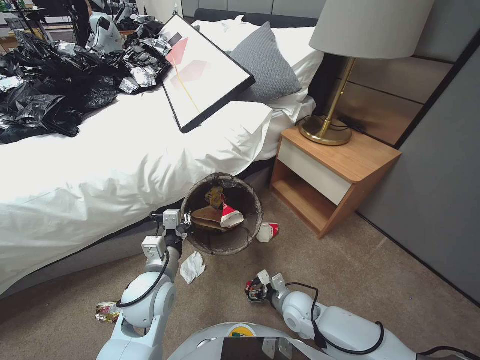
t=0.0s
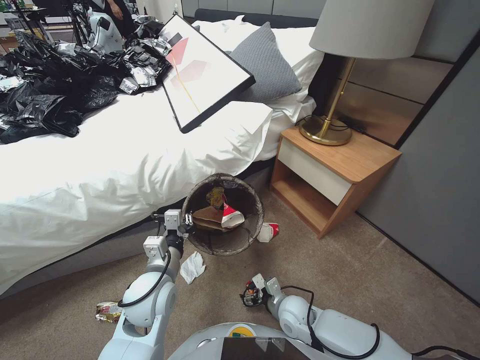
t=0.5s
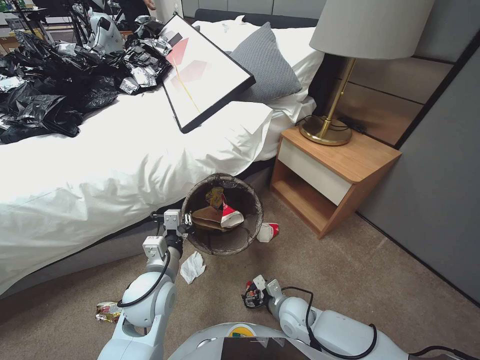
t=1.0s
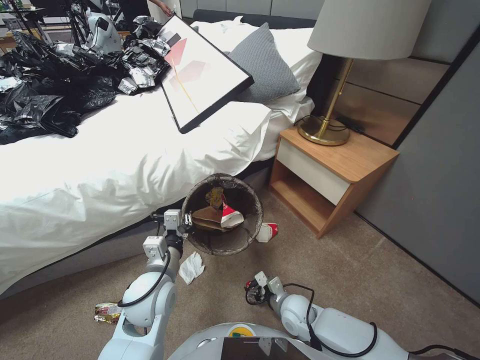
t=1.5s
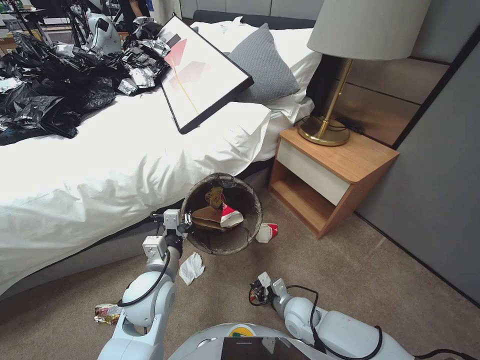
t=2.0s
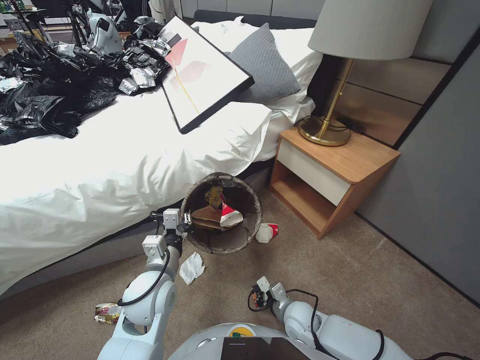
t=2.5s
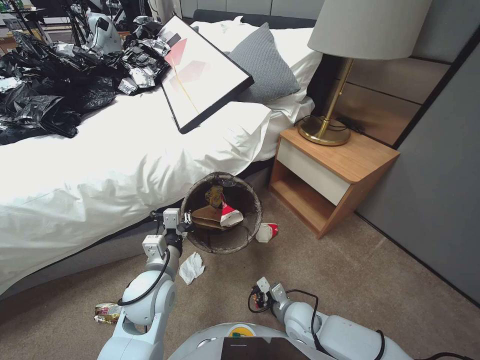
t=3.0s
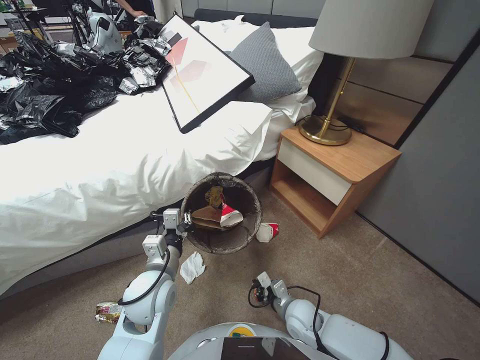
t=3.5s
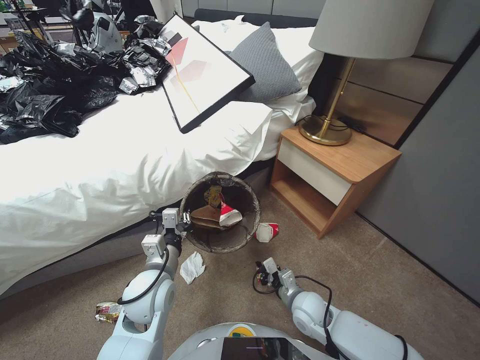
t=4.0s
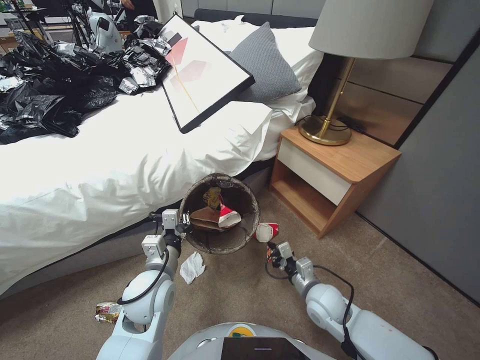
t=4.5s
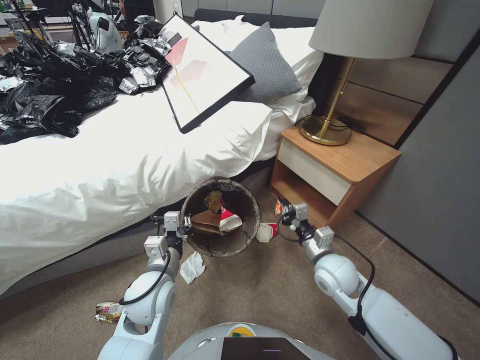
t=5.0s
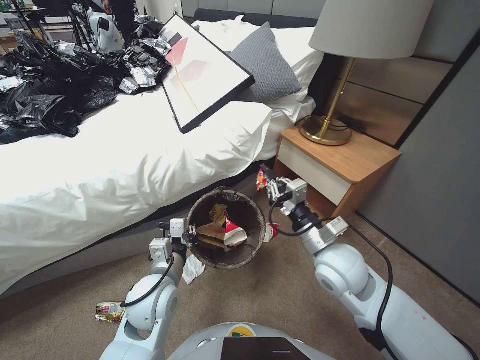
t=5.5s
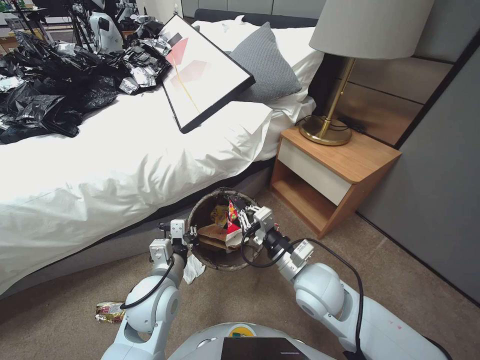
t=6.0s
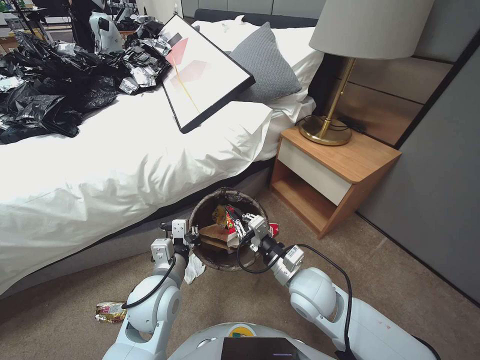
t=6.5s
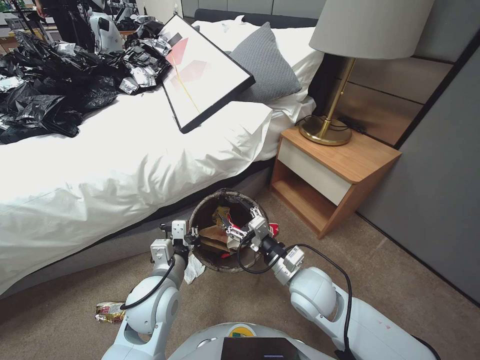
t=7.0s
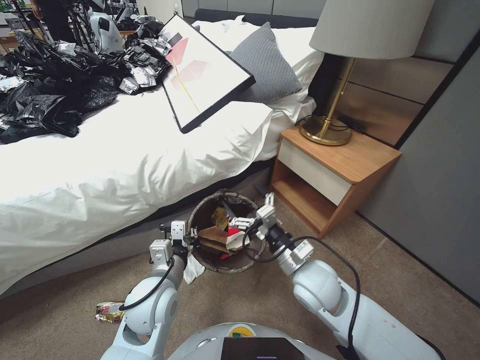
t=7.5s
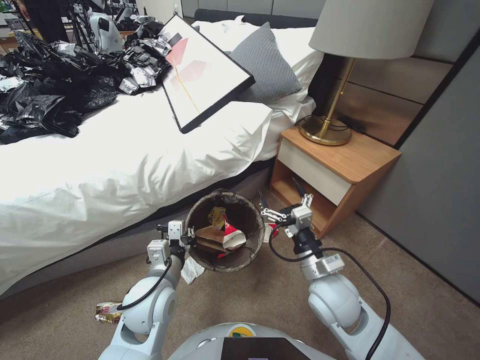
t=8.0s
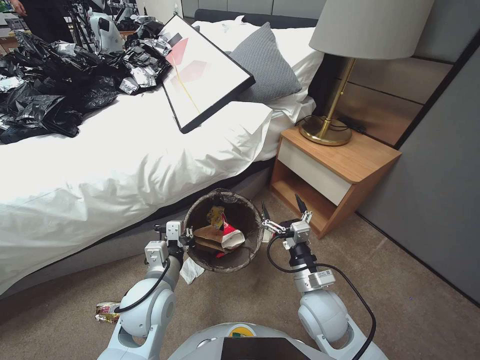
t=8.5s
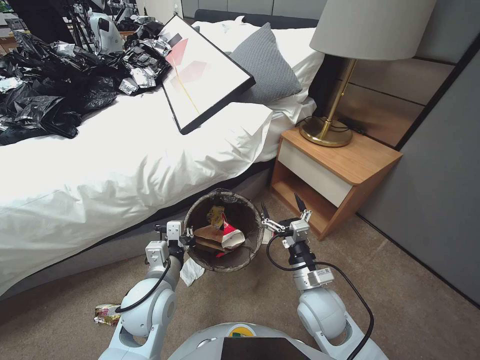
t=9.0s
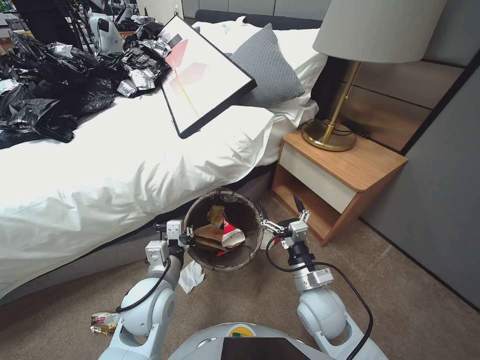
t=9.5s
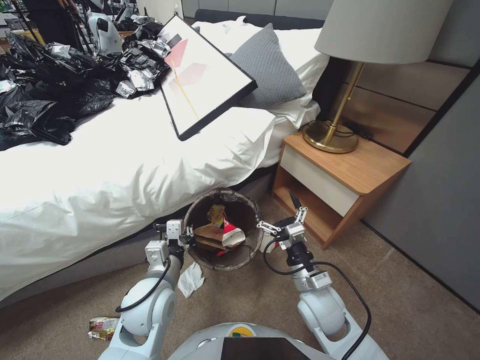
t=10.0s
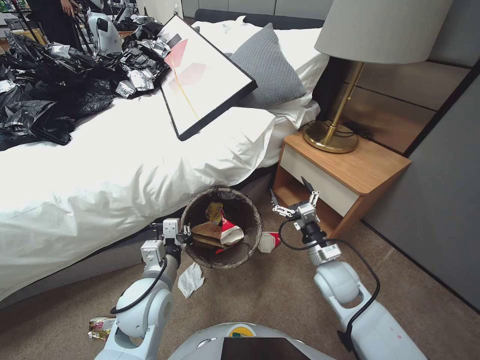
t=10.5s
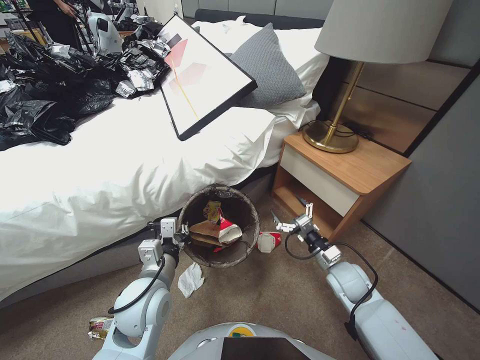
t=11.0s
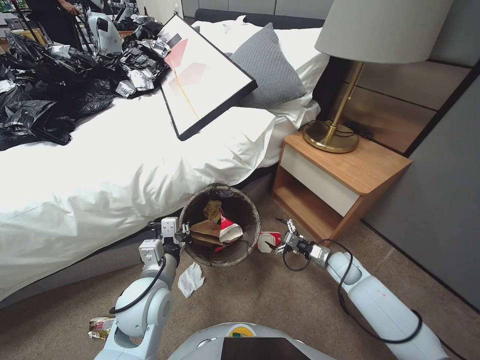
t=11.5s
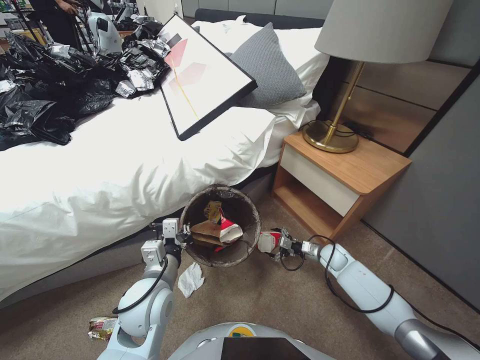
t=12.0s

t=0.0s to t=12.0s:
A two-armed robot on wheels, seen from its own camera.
Task of the whole recording: Pick up the trash bin, then pick up the garbage from the floor and place it into the trash bin.
t=0.0s to t=2.0s: The right gripper closes its fingers.
t=2.0s to t=4.0s: The right gripper closes its fingers.
t=4.0s to t=6.0s: The right gripper shifts some 20 cm upward.
t=6.0s to t=8.0s: The right gripper opens.
t=8.0s to t=10.0s: The right gripper is displaced downward by some 10 cm.
t=10.0s to t=12.0s: The right gripper travels forward, to the right and downward by some 25 cm.

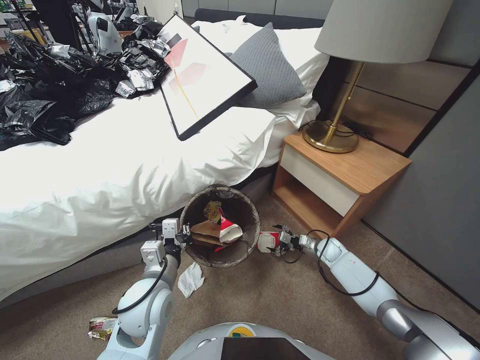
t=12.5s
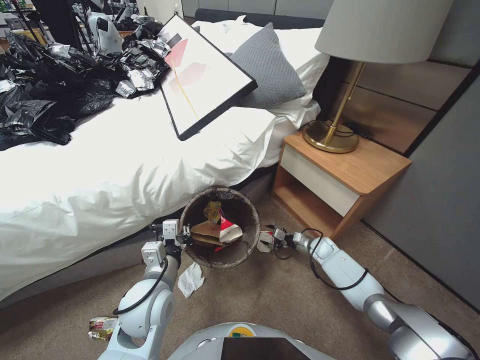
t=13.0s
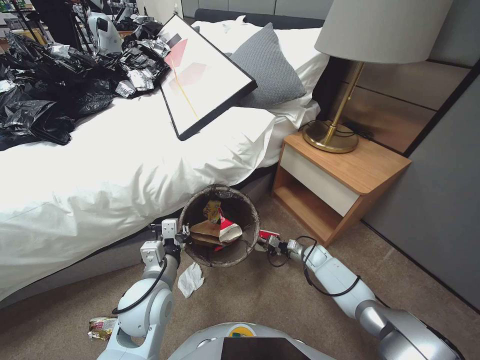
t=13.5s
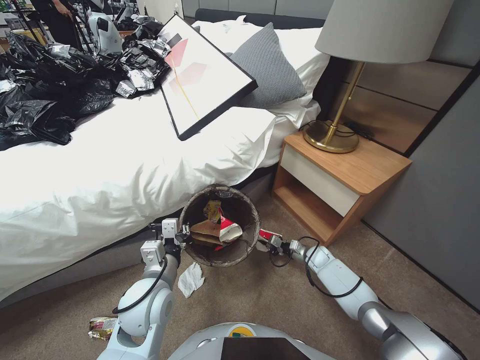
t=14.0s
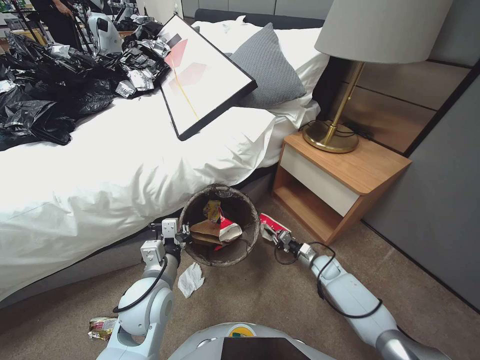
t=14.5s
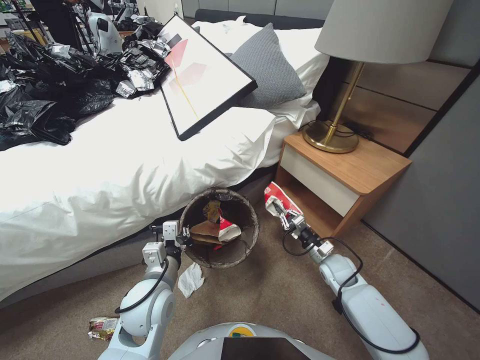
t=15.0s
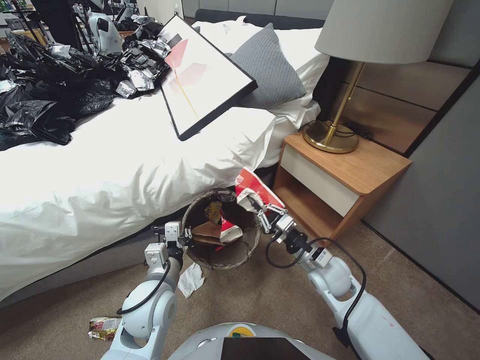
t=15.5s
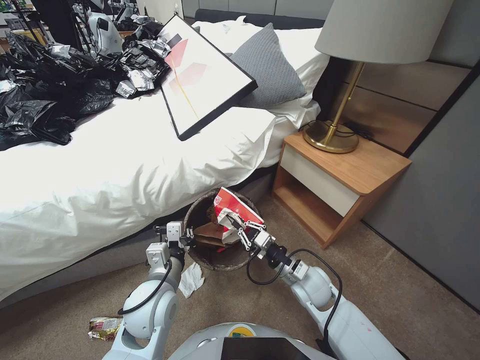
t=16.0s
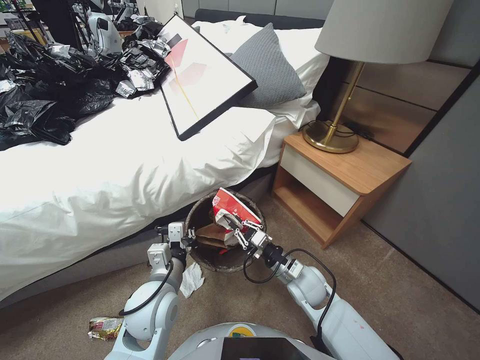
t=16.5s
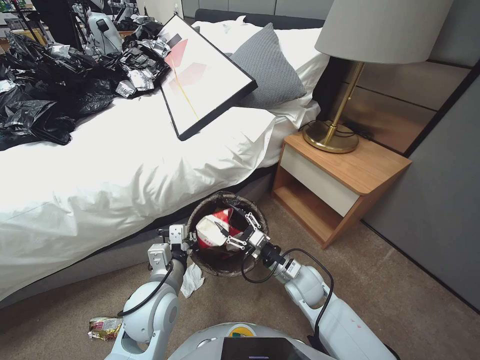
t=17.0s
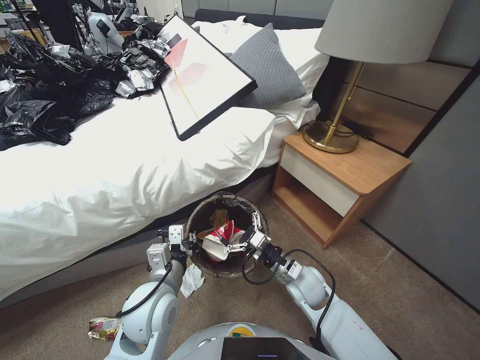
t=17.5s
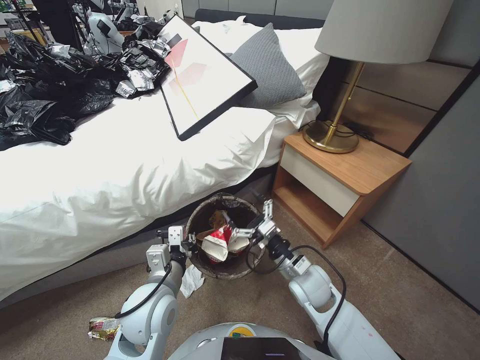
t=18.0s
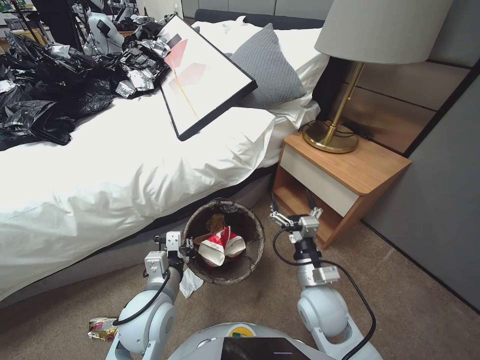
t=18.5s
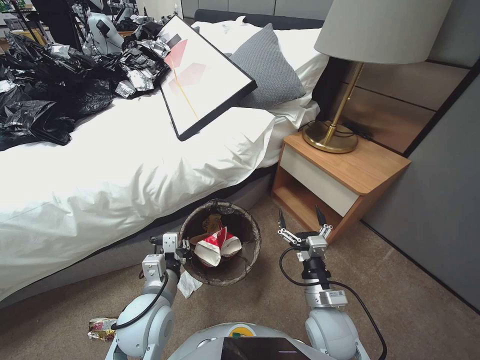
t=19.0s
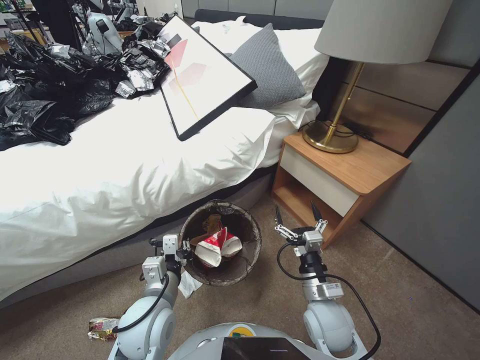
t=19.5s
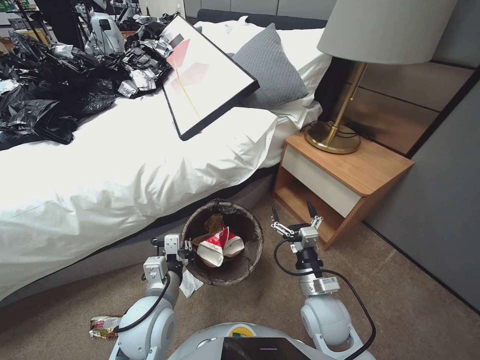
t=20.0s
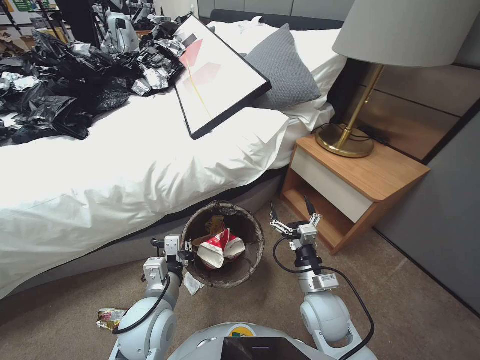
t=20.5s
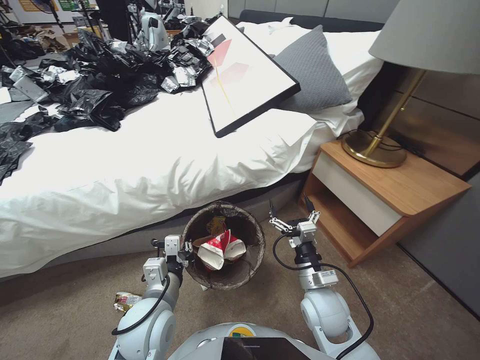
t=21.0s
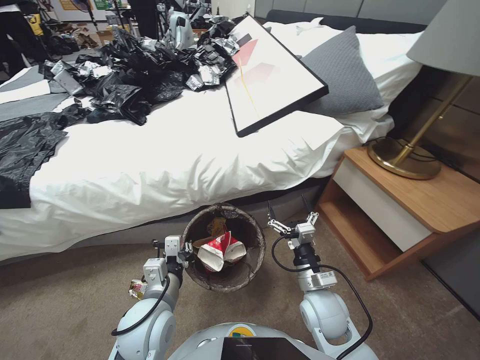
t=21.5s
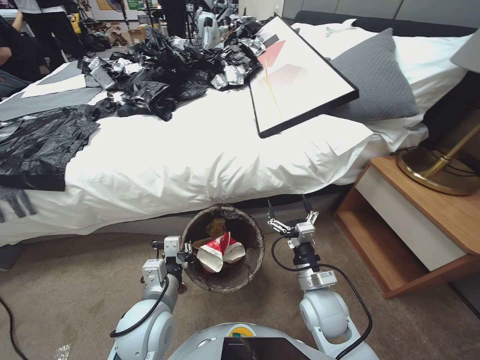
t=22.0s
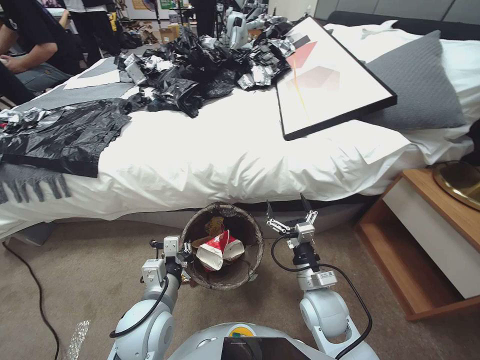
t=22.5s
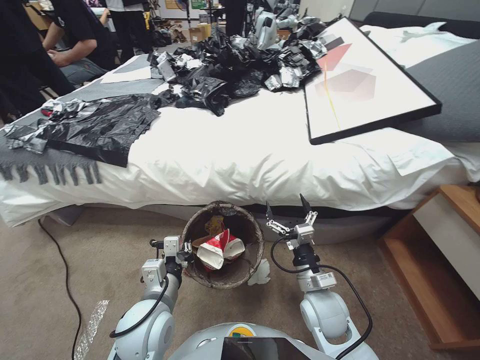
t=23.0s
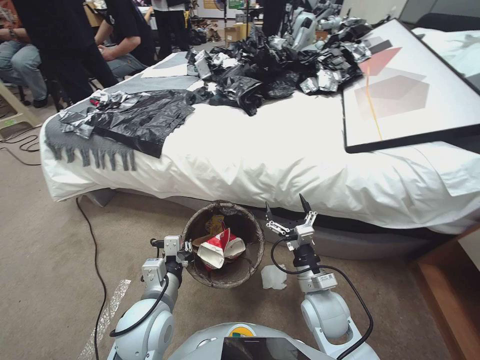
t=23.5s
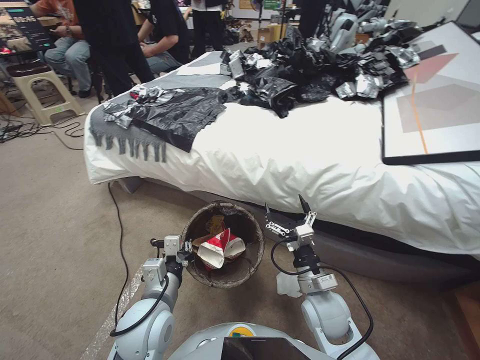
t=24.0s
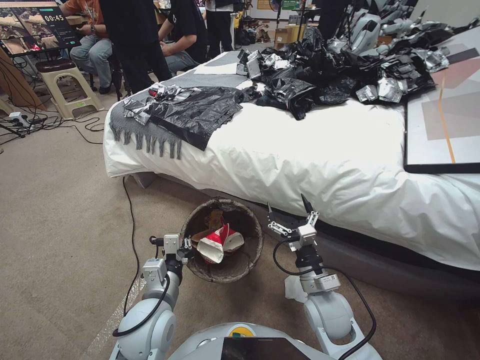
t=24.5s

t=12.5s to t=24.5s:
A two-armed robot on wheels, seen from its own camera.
Task of the whole recording: Pick up the trash bin, then pick up the garbage from the floor and place it into the trash bin.
t=12.5s to t=14.5s: The right gripper moves roughly 5 cm, and closes its fingers.
t=14.5s to t=16.5s: The right gripper shifts roughly 25 cm upward, to the left and backward.
t=16.5s to t=18.5s: The right gripper travels upward and backward by approximately 10 cm, and opens.

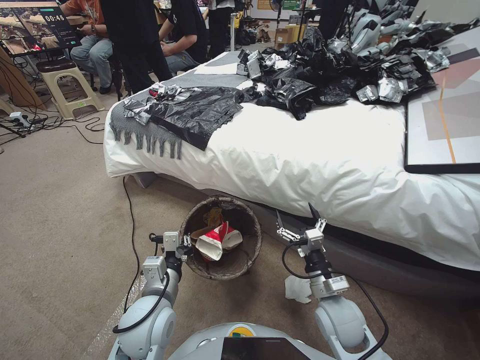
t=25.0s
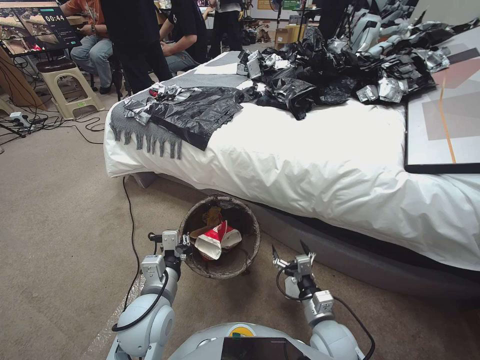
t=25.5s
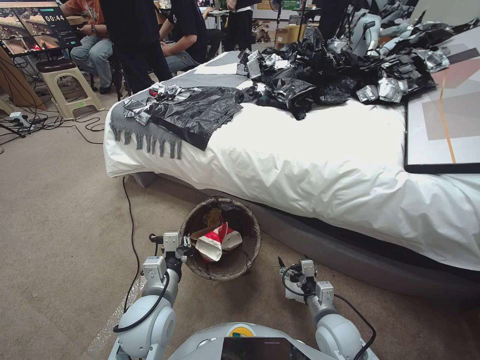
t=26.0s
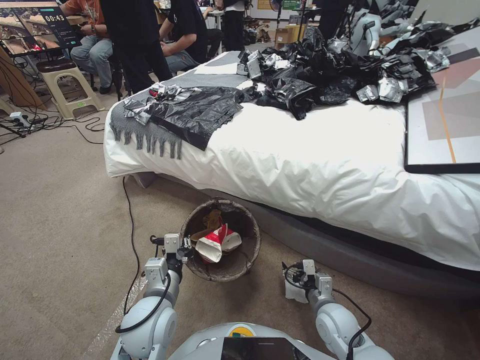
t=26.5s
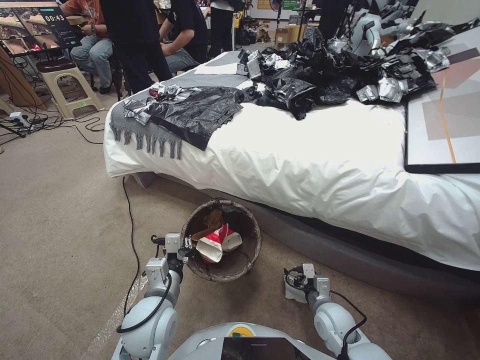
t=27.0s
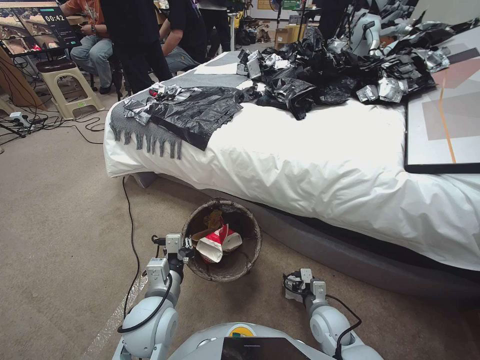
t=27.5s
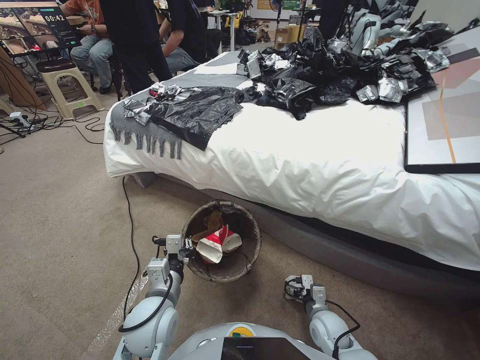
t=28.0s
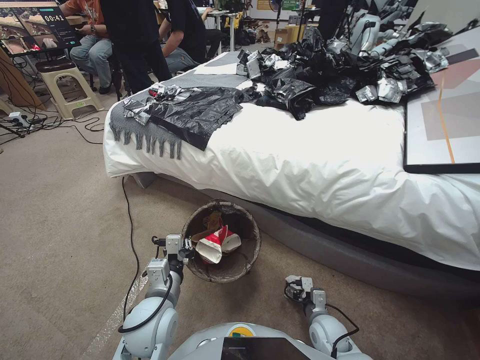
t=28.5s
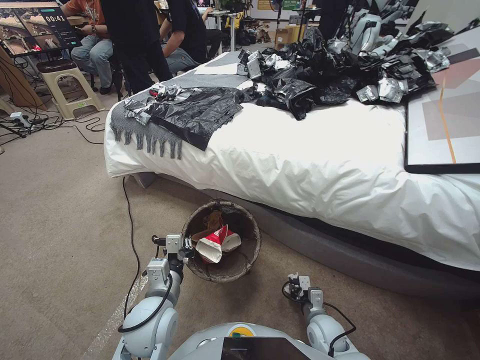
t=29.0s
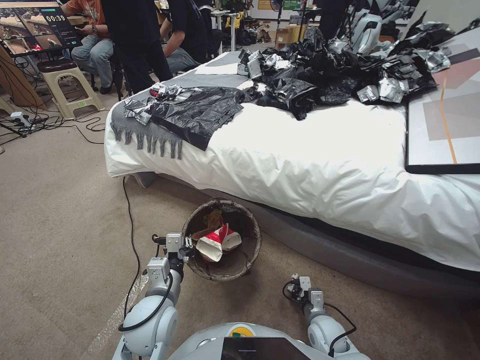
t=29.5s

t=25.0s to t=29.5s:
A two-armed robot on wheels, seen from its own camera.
Task of the whole recording: Pick up the trash bin, then pick up the garbage from the floor and place it into the trash bin.
t=25.0s to t=27.0s: The right gripper shifts roughly 10 cm downward and to the right.
t=27.0s to t=29.5s: The right gripper moves downward, some 5 cm, and closes its fingers.
